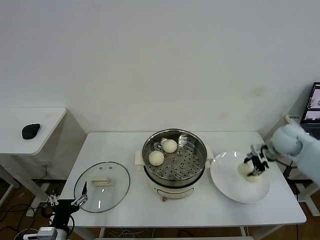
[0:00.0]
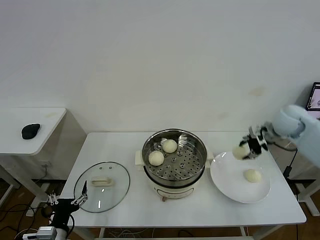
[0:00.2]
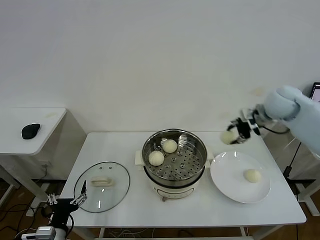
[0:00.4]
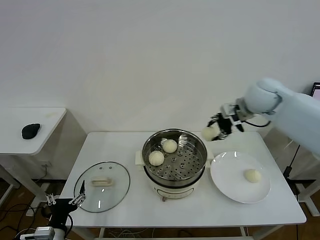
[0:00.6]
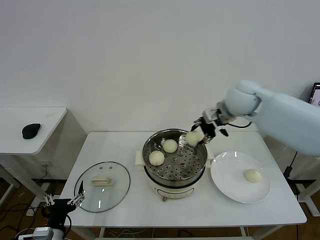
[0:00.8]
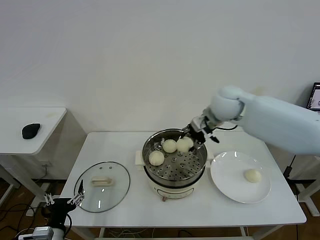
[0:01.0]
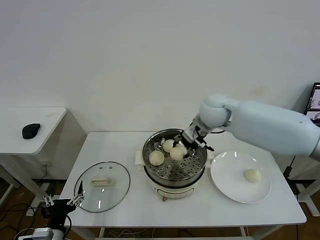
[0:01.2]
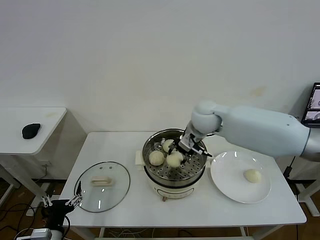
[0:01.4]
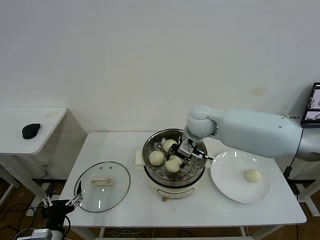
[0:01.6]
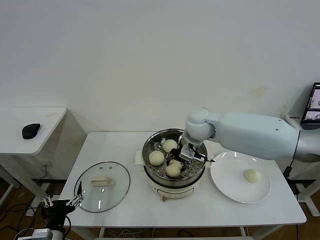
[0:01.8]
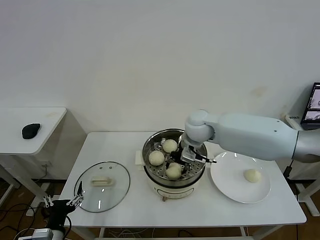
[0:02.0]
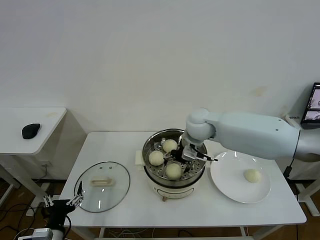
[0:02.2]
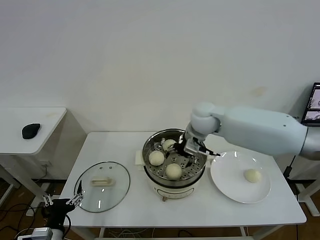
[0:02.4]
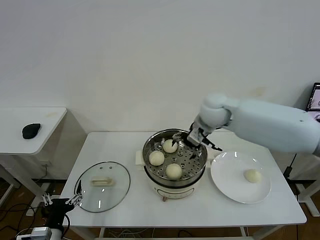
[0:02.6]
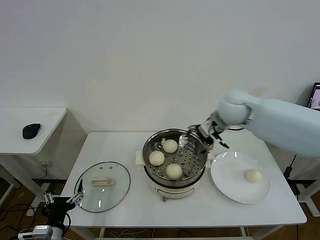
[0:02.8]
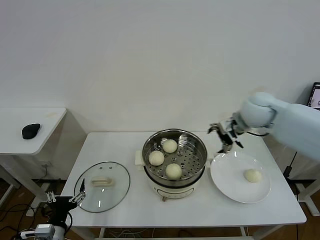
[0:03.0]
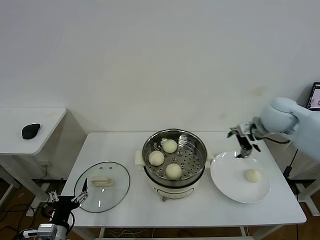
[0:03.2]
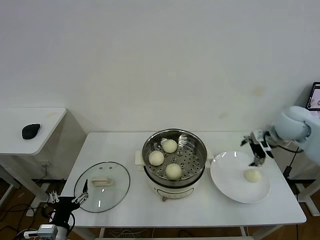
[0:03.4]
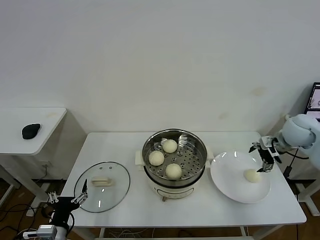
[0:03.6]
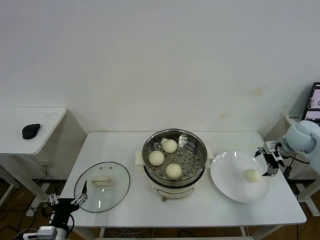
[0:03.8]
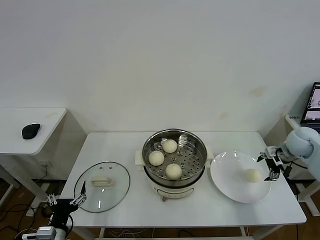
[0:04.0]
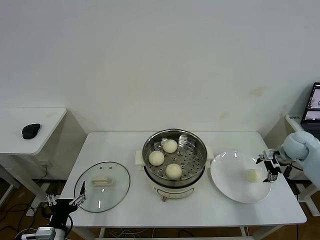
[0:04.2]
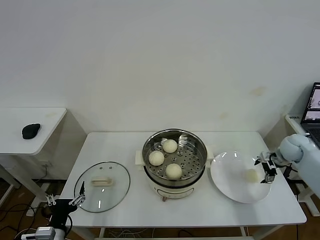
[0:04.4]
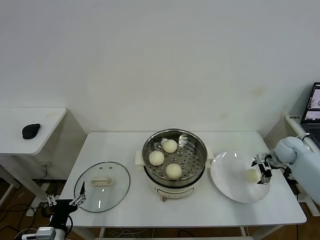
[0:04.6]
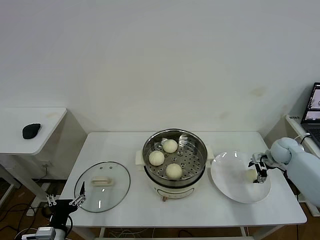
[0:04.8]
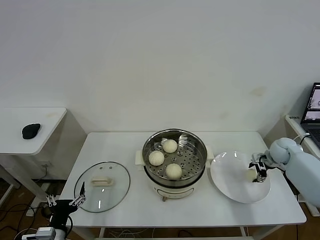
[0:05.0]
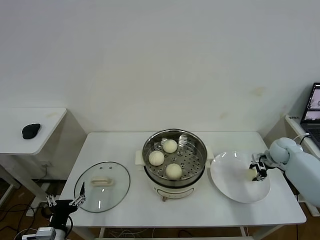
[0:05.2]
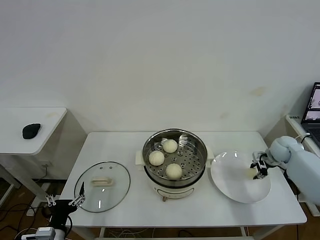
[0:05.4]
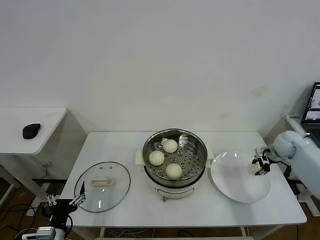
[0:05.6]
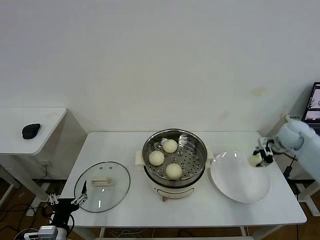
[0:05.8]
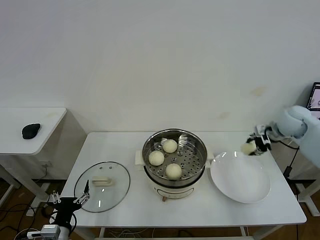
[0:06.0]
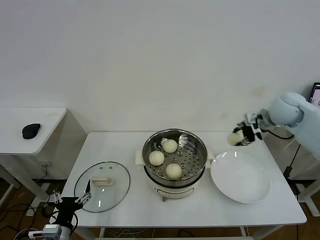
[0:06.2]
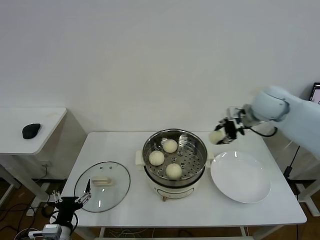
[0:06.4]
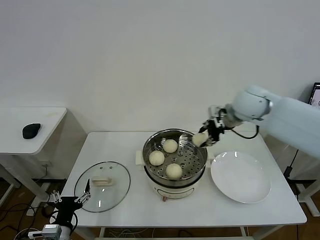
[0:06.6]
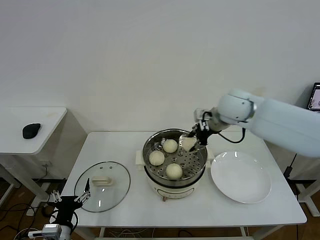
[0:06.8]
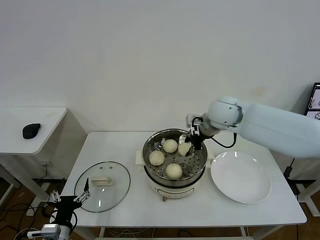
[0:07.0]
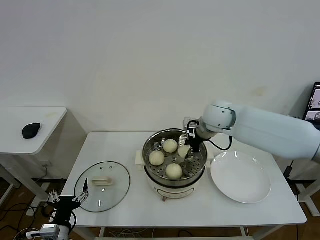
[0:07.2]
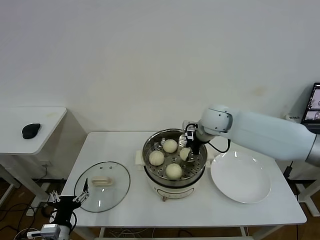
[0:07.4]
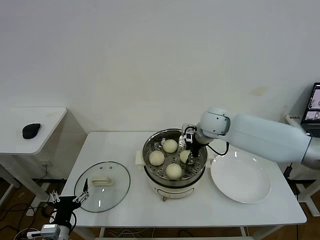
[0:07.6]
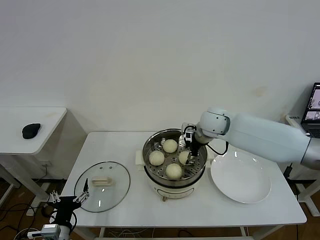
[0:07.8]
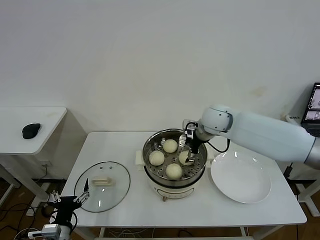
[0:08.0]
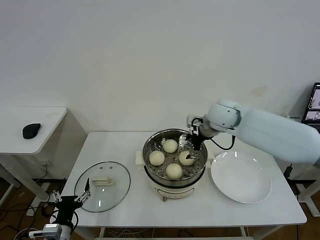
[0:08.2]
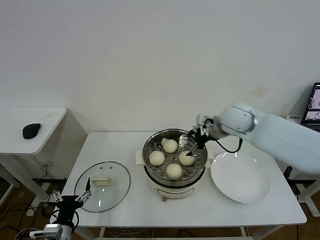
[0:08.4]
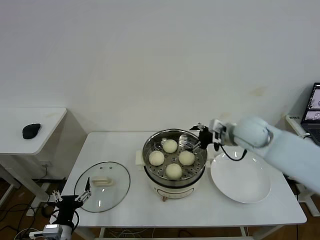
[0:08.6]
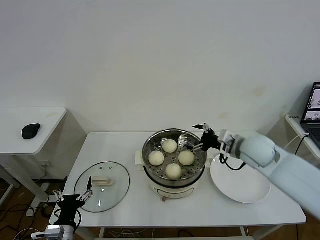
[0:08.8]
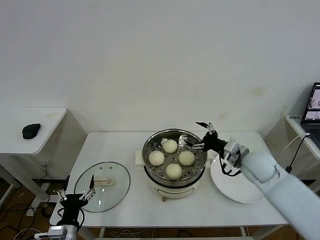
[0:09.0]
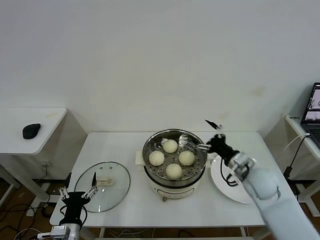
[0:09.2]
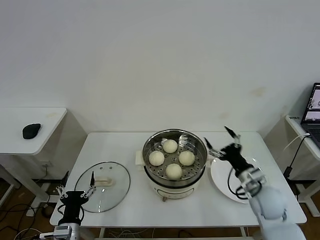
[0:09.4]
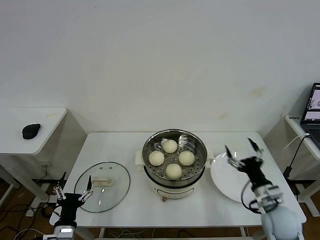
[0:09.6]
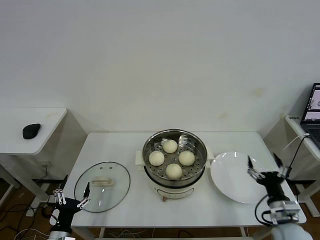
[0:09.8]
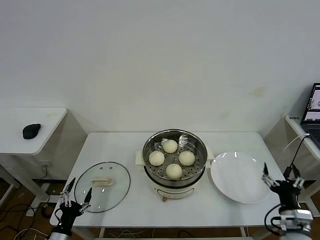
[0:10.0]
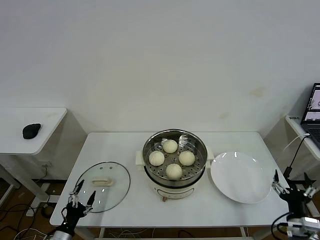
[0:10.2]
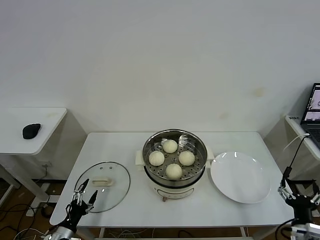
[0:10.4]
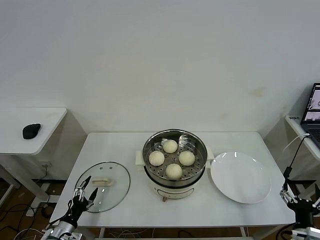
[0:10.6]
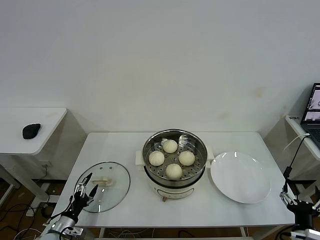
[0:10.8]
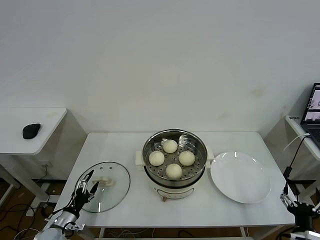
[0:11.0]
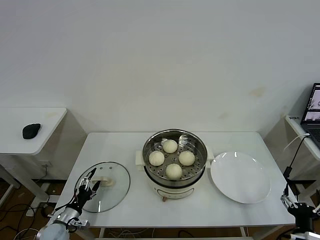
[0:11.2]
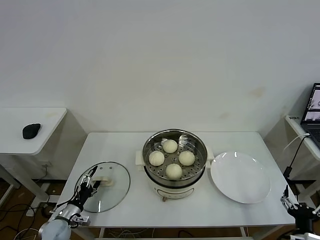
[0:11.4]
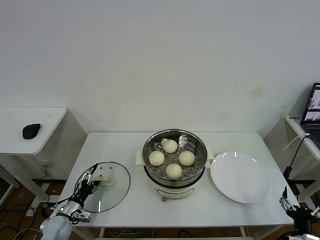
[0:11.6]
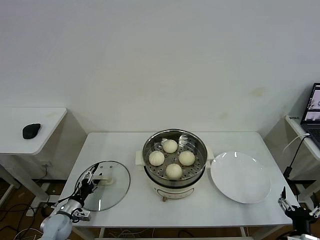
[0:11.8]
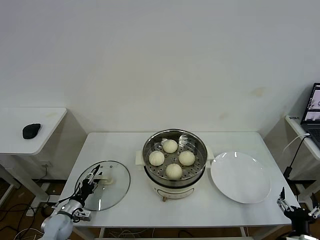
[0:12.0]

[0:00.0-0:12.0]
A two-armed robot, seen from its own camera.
Task of the whole recording: take steamed baozi put them in steamer then cover it.
Step, 0:00.0 to 0:02.2: Place the baozi on the steamer with right gripper.
Step, 0:02.4 to 0:05.2: Grasp the baozi in the plate with right gripper.
Step, 0:05.4 to 0:07.8: Place the baozi on the steamer with right gripper.
0:00.0 to 0:01.6: The right gripper shifts about 30 cm to the left.
0:01.6 to 0:03.0: The right gripper is displaced to the right by some 20 cm, and opens.
0:03.0 to 0:04.4: The right gripper travels to the right and downward by about 25 cm.
0:04.4 to 0:06.0: The right gripper goes about 15 cm upward and to the left, and closes up.
0:06.0 to 0:07.6: The right gripper shifts approximately 25 cm to the left.
0:07.6 to 0:09.0: The right gripper moves backward, to the right and downward, roughly 20 cm, and opens up.
0:09.0 to 0:10.4: The left gripper heads to the left and downward, covering about 10 cm; the right gripper shifts approximately 30 cm backward, downward and to the right.
0:10.4 to 0:12.0: The left gripper heads forward, covering about 10 cm, and closes up.

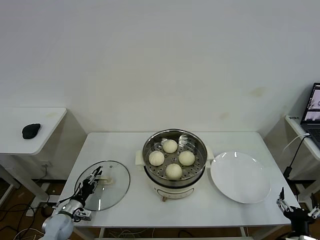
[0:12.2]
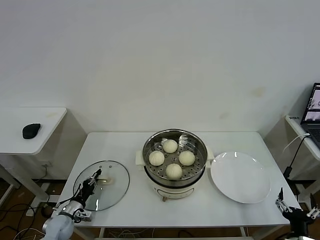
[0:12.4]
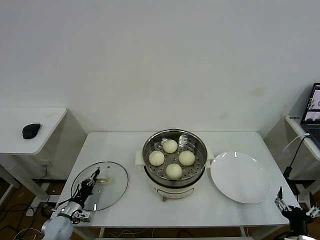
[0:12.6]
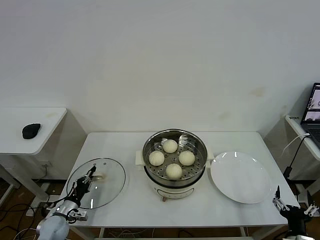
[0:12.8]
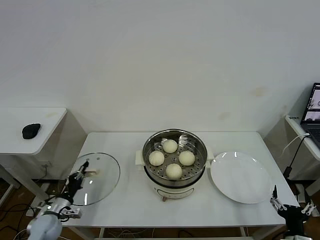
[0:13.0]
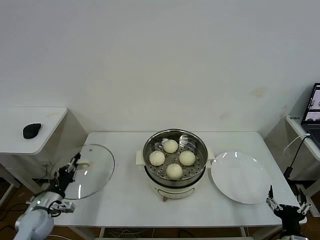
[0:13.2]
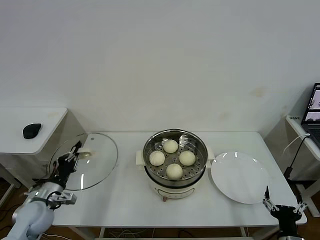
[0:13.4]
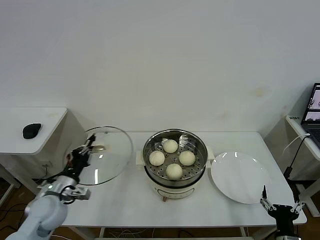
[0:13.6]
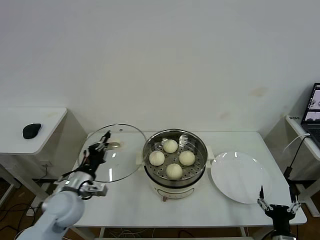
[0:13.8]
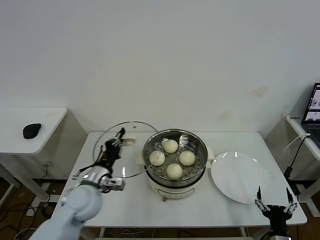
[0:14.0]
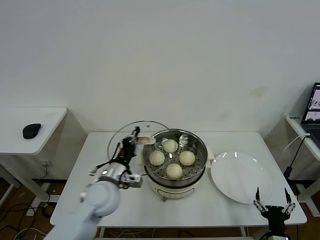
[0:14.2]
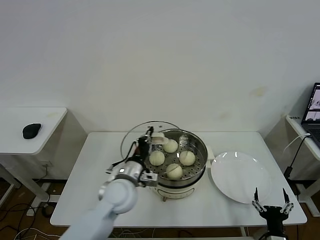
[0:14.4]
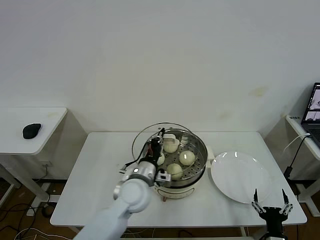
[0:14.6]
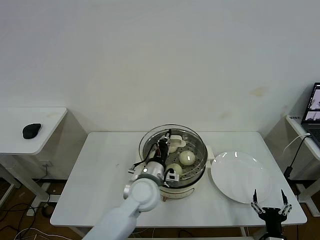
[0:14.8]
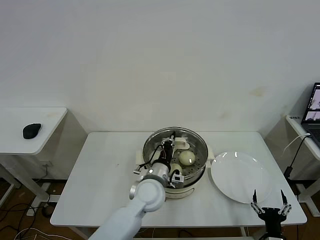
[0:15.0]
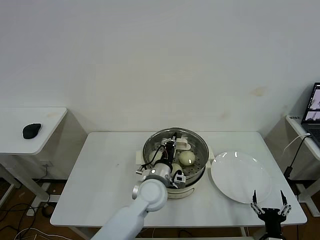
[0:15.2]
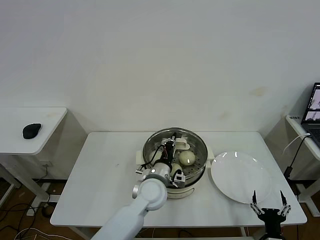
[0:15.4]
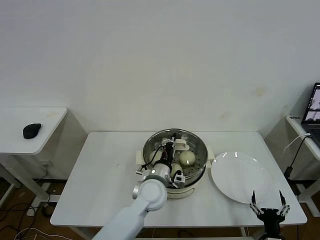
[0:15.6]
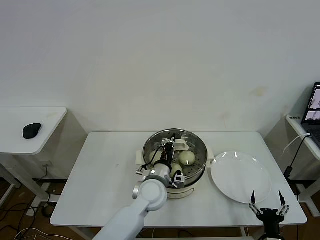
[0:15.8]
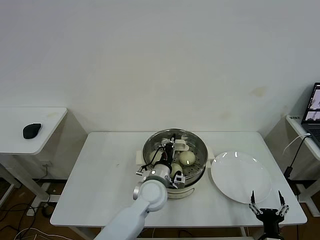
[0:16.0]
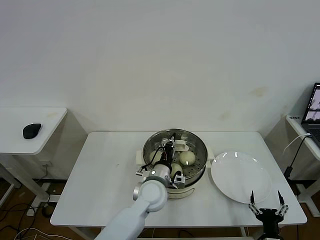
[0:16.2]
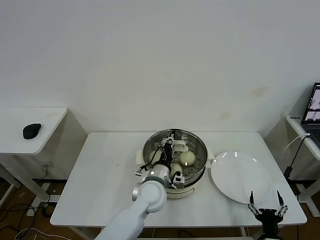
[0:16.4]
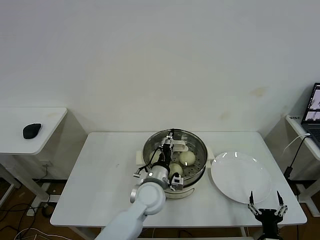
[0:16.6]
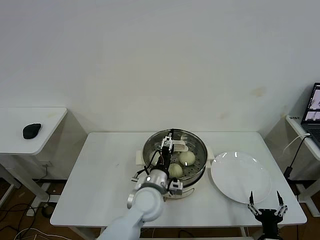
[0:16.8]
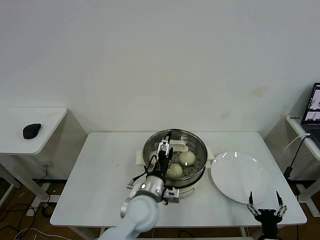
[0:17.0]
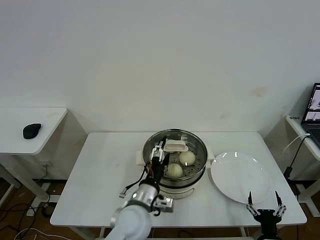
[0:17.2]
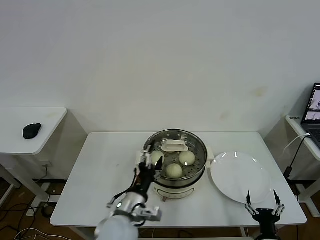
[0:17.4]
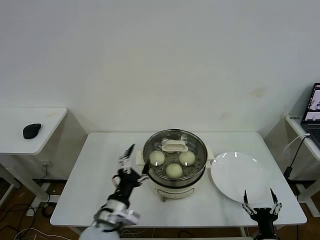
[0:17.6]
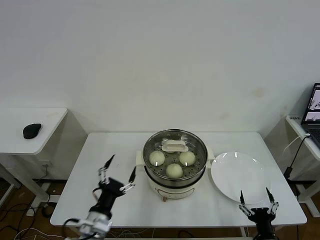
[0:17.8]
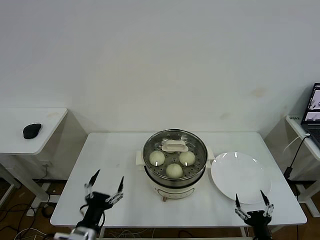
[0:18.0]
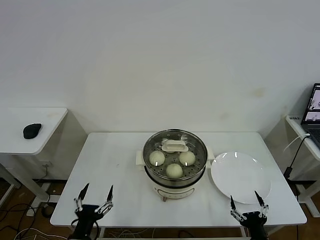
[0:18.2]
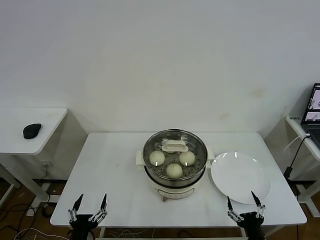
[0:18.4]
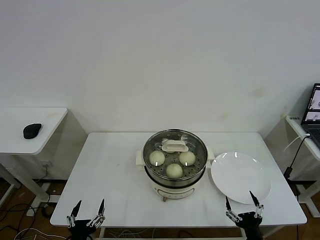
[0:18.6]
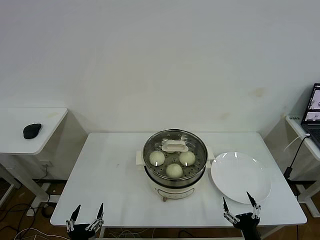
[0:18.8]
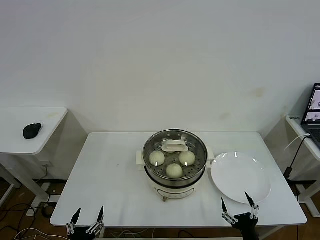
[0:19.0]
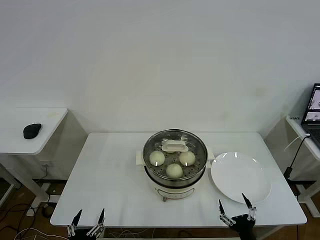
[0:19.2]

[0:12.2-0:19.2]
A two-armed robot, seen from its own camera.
Task of the whole recording: take steamed baozi put them in steamer then cover it.
Step, 0:12.8 to 0:16.4: Place the pot lid on the steamer with left gripper.
0:12.2 to 0:13.6: The left gripper heads upward, covering some 20 cm, and closes its fingers.
0:13.6 to 0:15.0: The left gripper is displaced to the right by roughly 30 cm.
0:15.0 to 0:16.4: The left gripper opens up.
0:16.4 to 0:17.8: The left gripper travels to the left and backward by about 25 cm, and opens up.
0:17.8 to 0:19.2: The left gripper travels backward, downward and to the left by some 15 cm.
